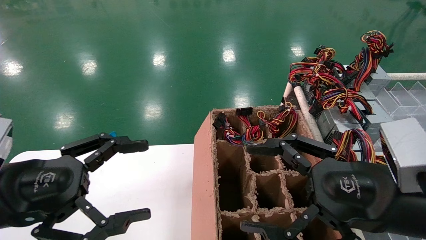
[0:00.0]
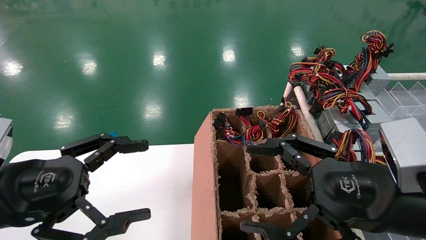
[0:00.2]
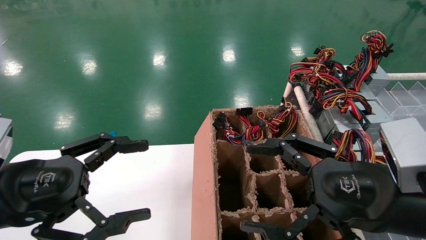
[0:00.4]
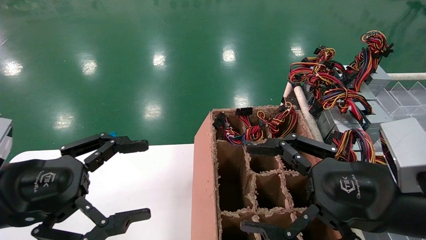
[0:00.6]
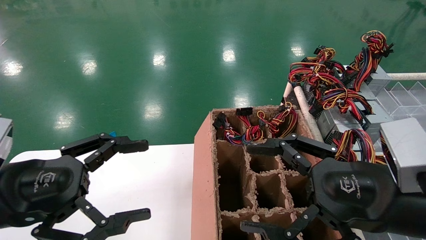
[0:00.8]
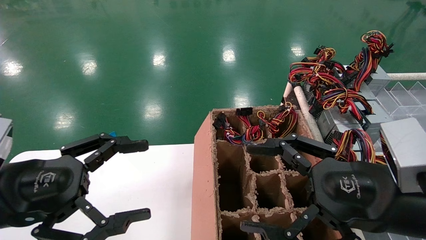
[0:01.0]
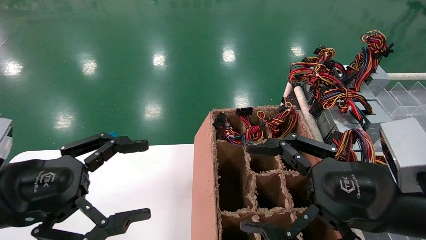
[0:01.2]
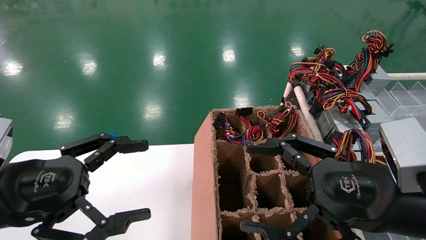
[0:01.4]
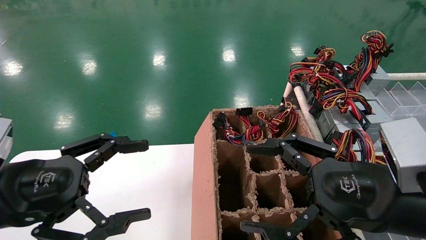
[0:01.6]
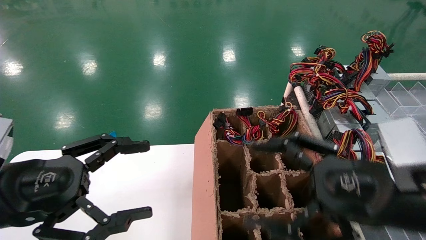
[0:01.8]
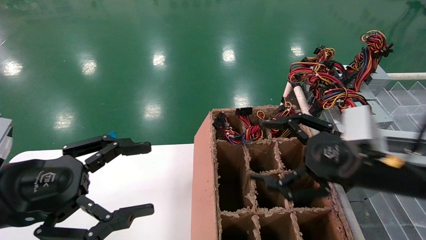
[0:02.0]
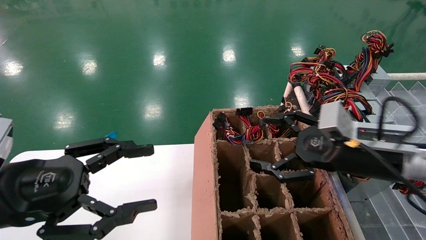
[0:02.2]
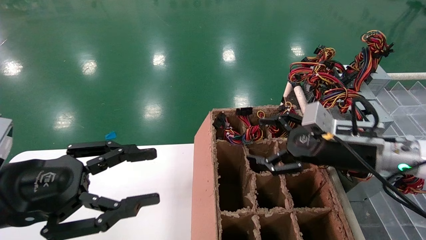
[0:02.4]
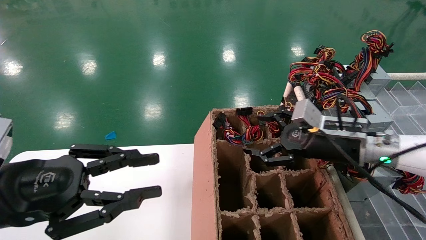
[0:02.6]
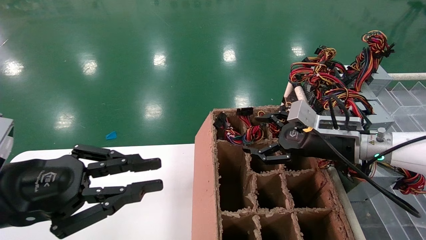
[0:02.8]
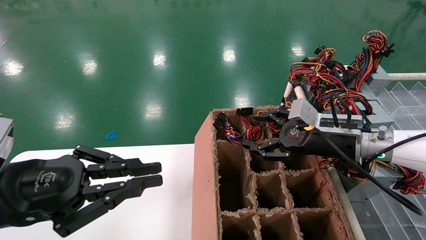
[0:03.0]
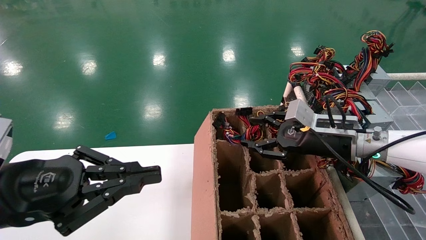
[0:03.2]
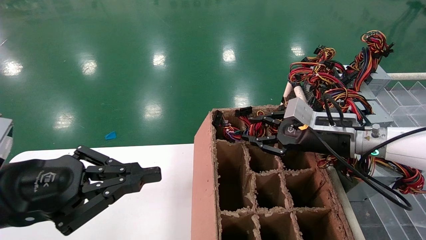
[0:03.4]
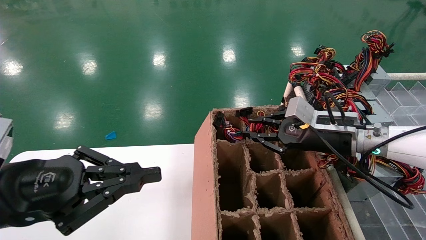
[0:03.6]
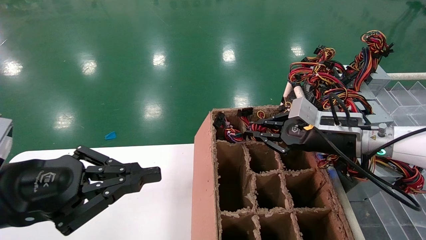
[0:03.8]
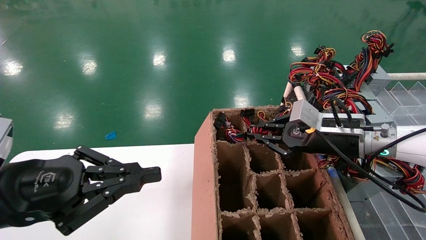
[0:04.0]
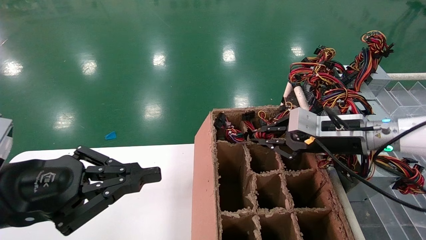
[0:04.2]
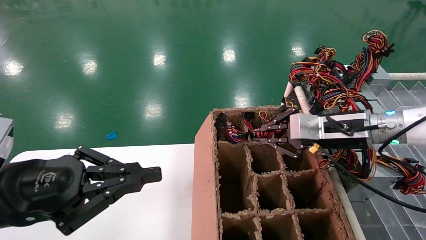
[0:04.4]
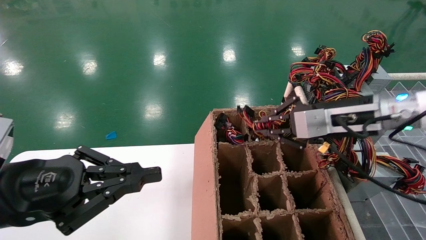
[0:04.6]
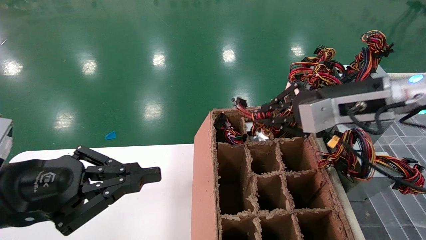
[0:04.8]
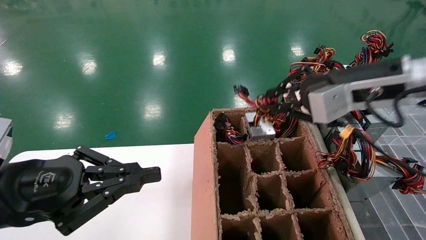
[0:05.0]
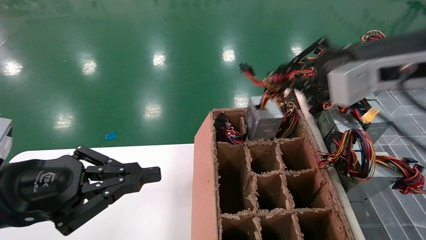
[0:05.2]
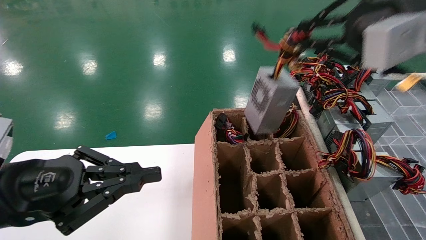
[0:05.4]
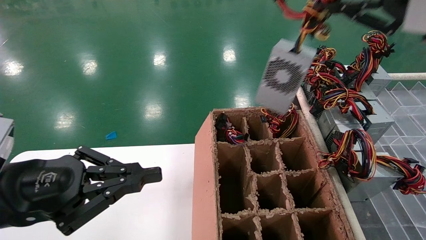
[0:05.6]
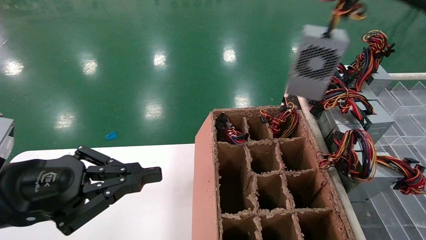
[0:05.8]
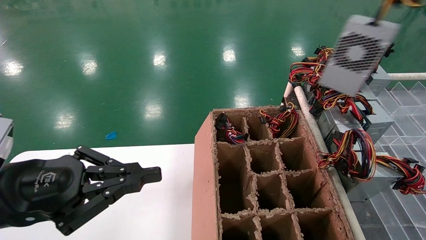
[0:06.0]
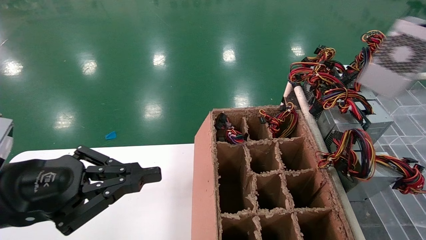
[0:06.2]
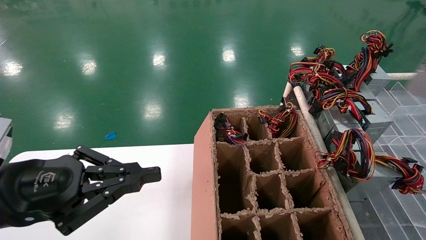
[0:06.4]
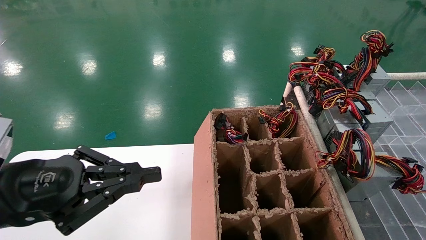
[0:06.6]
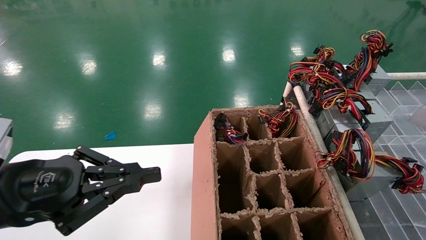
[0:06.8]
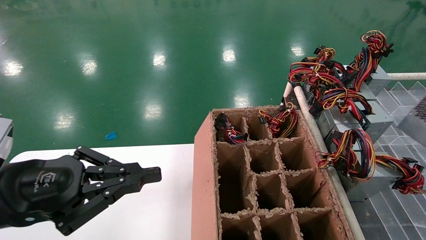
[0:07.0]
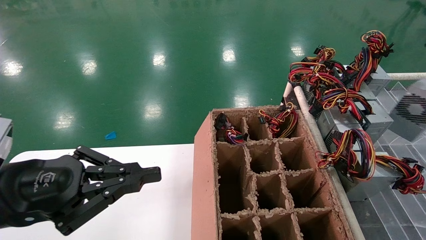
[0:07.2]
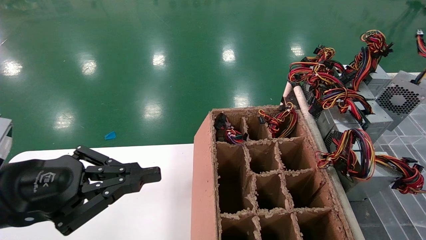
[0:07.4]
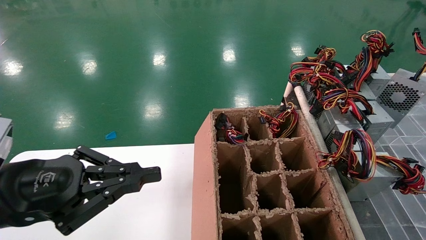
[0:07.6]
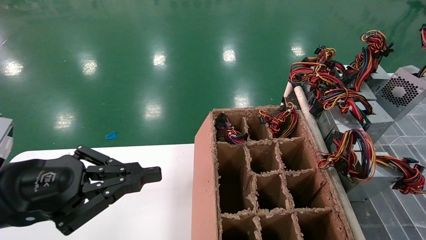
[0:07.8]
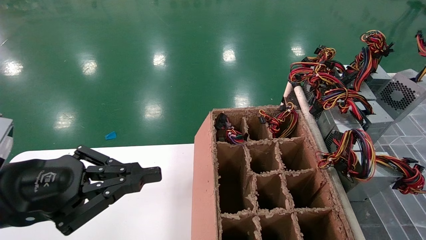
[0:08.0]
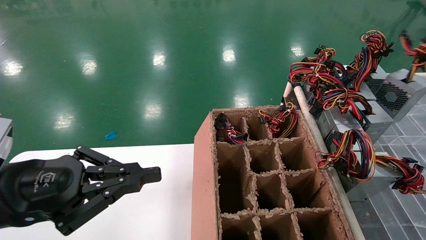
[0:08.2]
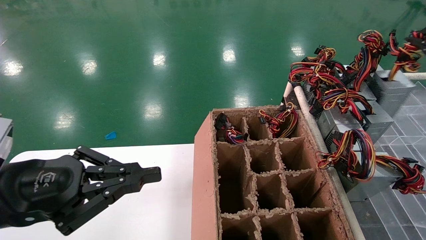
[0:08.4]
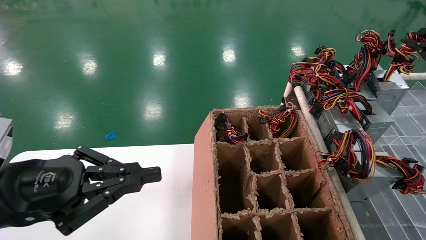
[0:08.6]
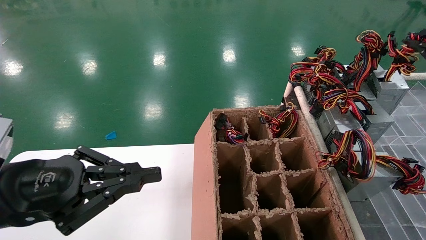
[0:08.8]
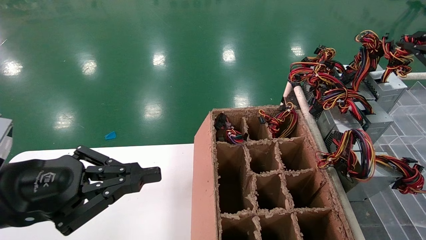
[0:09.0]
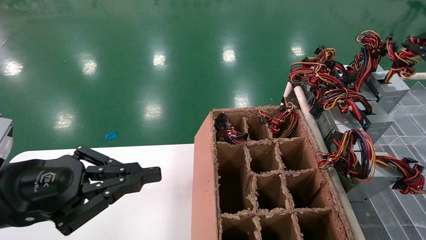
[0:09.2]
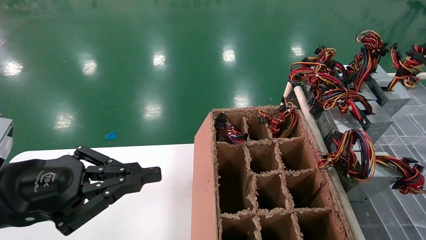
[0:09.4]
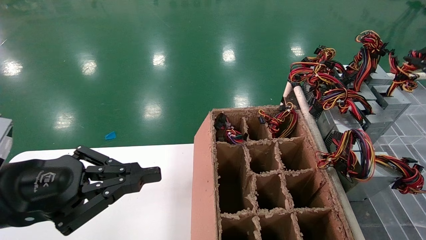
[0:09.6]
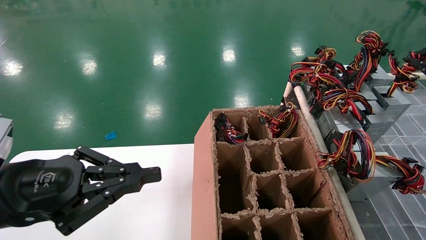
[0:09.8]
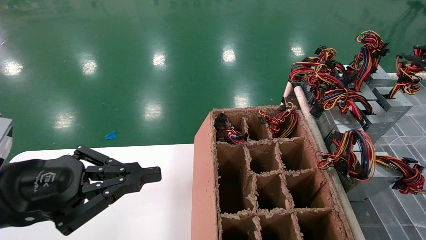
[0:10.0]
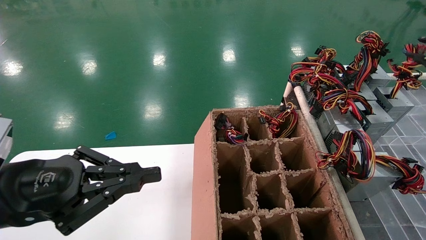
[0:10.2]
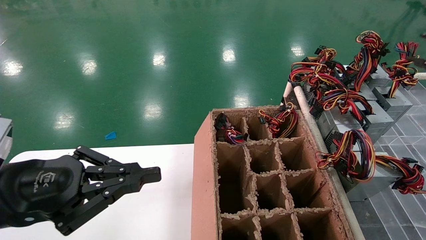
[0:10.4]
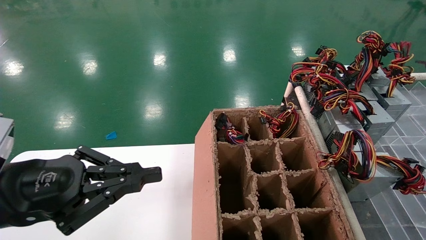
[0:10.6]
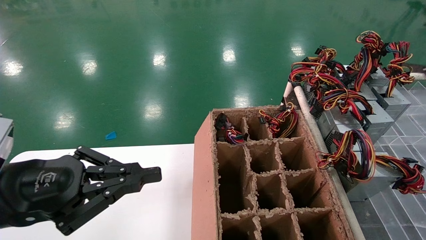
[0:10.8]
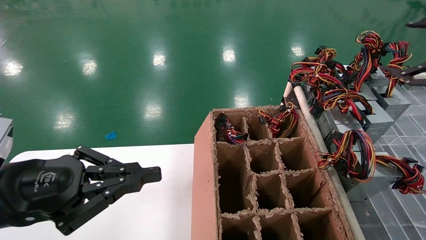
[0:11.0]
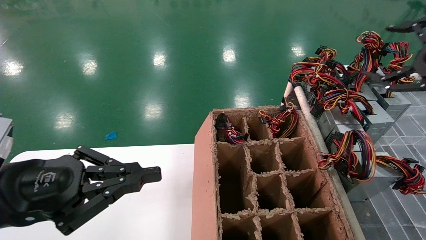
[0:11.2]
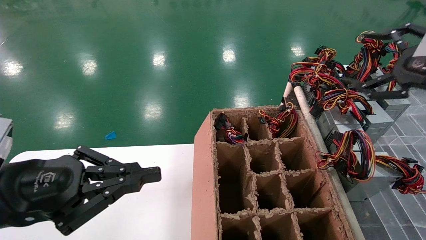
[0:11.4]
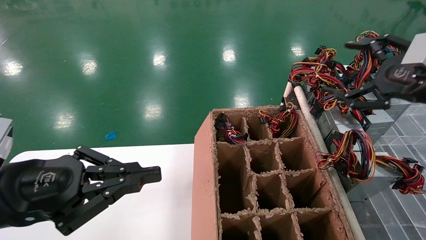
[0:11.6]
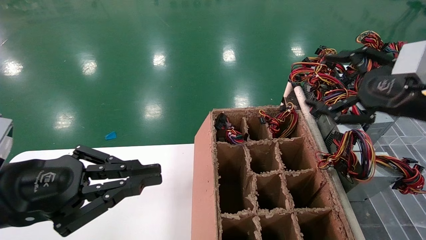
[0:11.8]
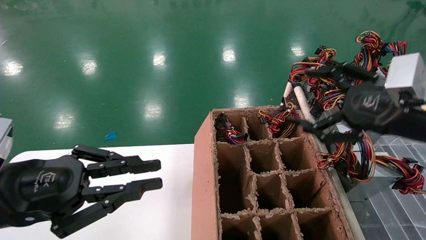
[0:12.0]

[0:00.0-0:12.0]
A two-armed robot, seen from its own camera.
Step, 0:02.0 to 0:03.8: Grab the main unit power supply from the containment box.
Step, 0:04.0 to 0:10.6: Place the main unit power supply in the designated area.
0:00.0 to 0:01.6: The two grippers keep their place.
0:01.6 to 0:03.0: The right gripper goes roughly 20 cm forward. Meanwhile the left gripper closes its fingers.
0:03.0 to 0:04.4: The right gripper closes up.
0:04.4 to 0:06.0: The right gripper goes roughly 35 cm upward, backward and to the right.
0:06.0 to 0:07.6: The right gripper travels to the right, forward and downward by about 20 cm.
0:07.6 to 0:09.0: The right gripper changes place by about 5 cm.
0:09.0 to 0:10.4: The grippers make only small movements.
0:10.4 to 0:12.0: The right gripper shifts about 20 cm to the left and downward, and opens its fingers.

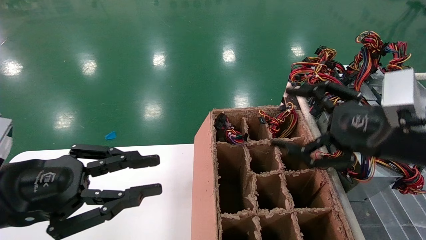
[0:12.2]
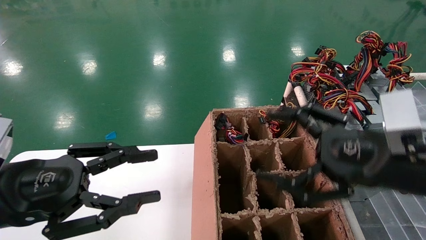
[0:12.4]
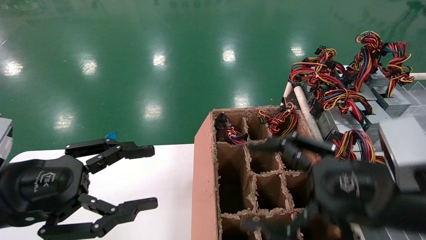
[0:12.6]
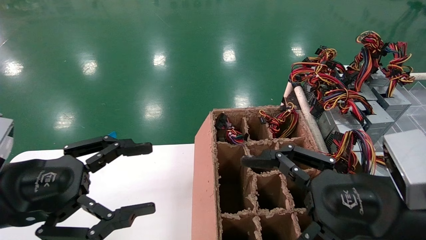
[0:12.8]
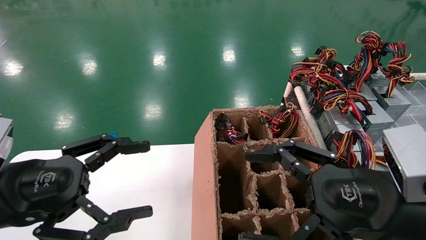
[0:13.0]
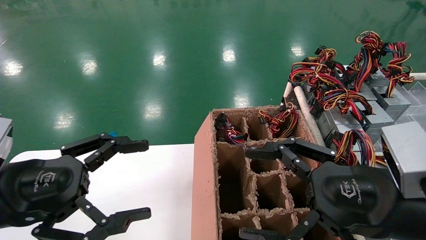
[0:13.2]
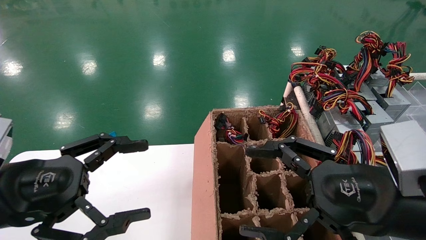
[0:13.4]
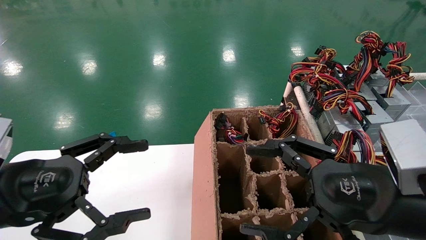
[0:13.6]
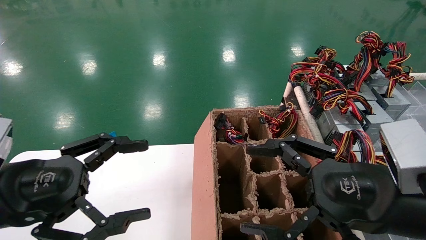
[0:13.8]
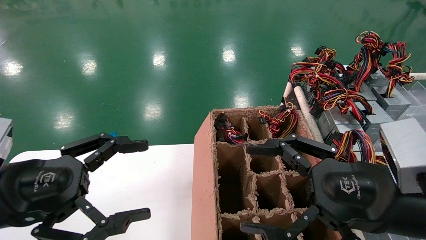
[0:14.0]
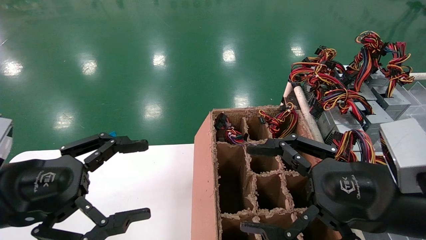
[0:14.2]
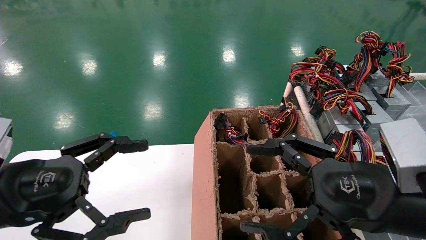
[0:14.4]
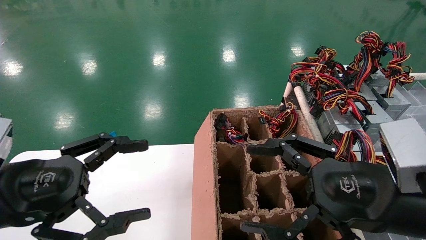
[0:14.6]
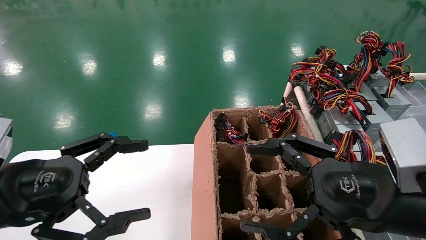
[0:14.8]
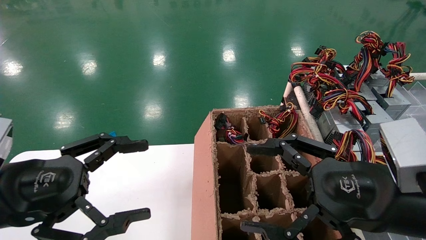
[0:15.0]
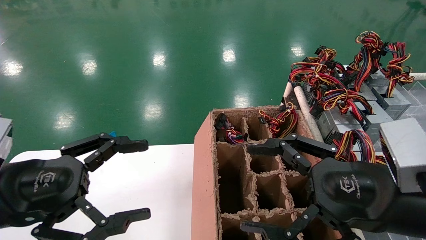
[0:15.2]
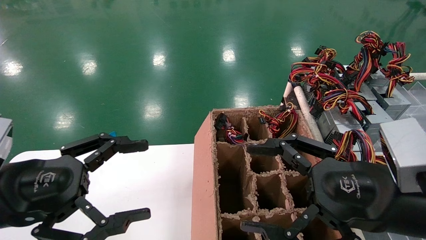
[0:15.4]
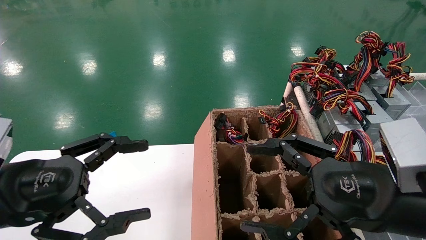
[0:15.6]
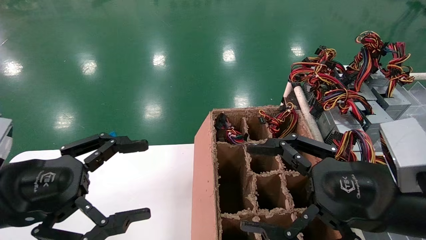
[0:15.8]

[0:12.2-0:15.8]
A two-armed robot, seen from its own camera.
0:12.2 to 0:14.0: The right gripper is displaced backward and to the left by some 5 cm; the left gripper opens its fingers.
0:14.0 to 0:15.8: The two grippers keep their place.

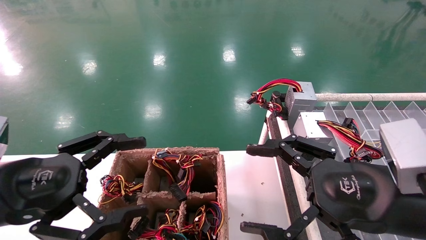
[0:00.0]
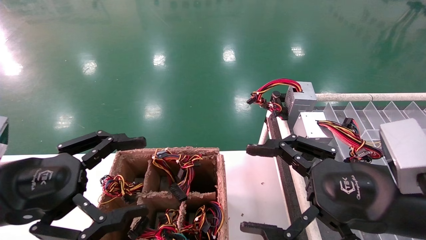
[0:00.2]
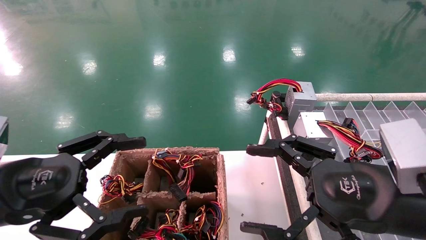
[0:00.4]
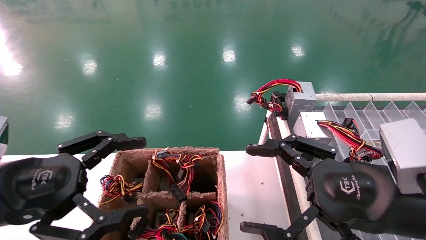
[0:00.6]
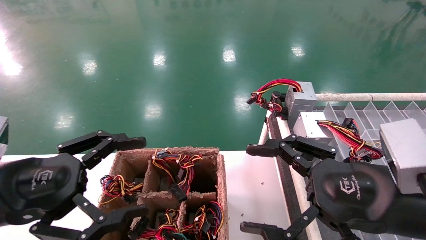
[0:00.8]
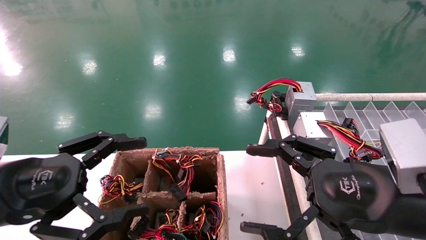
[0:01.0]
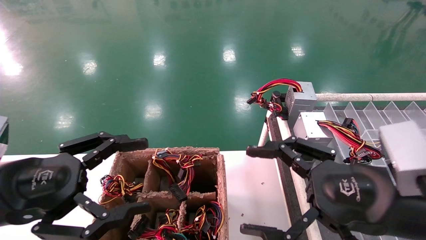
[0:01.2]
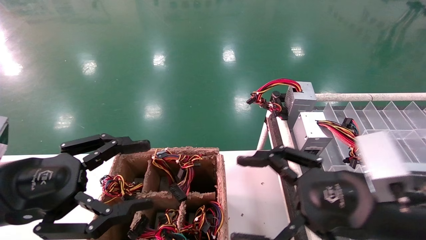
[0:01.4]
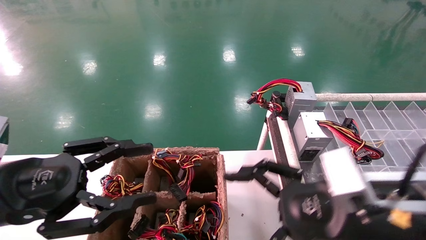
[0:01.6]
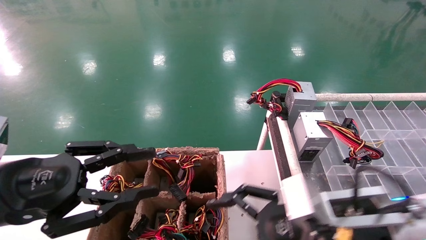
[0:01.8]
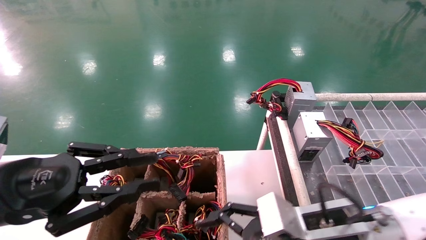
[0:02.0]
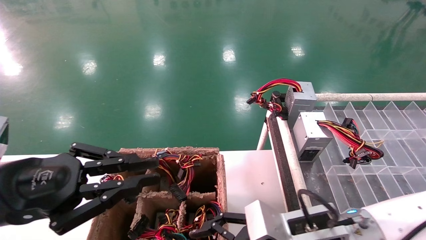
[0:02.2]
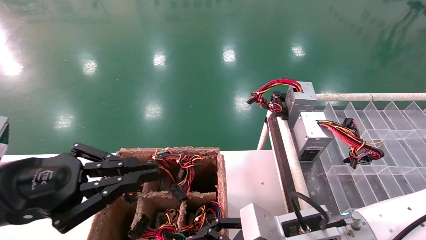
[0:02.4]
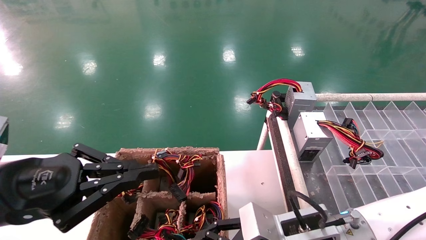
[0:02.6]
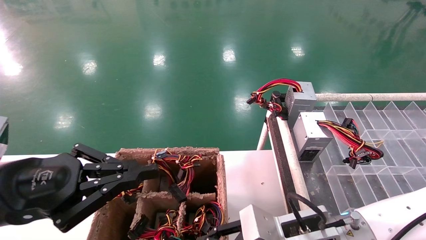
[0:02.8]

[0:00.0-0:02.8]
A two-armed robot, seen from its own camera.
0:00.0 to 0:01.4: The grippers make only small movements.
0:01.4 to 0:02.8: The right gripper is displaced downward, to the left and forward by about 15 cm, and closes its fingers. Meanwhile the left gripper closes.
